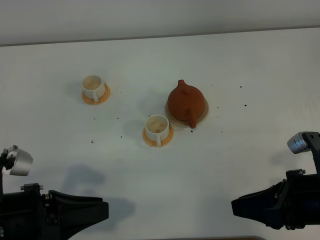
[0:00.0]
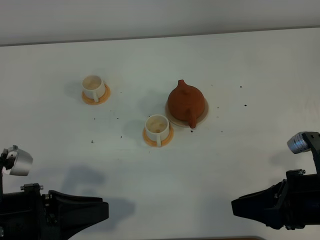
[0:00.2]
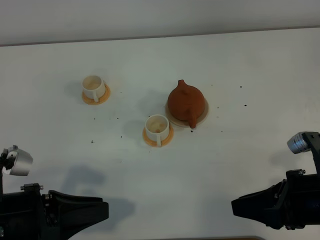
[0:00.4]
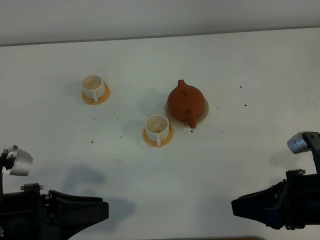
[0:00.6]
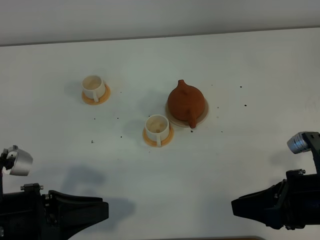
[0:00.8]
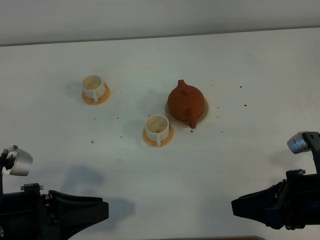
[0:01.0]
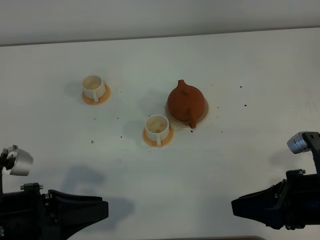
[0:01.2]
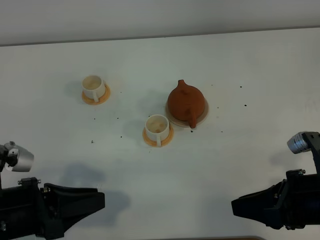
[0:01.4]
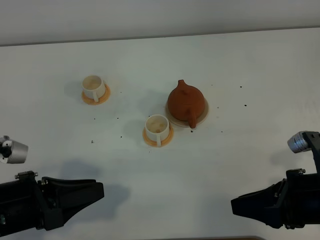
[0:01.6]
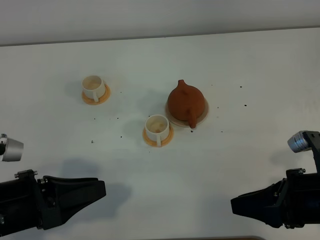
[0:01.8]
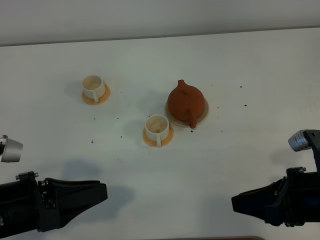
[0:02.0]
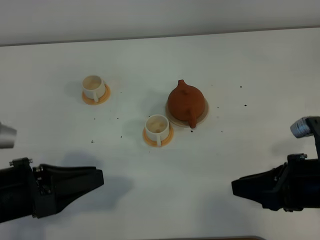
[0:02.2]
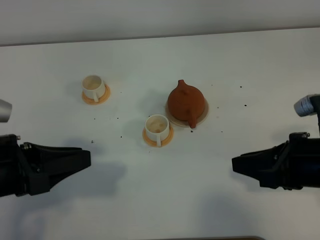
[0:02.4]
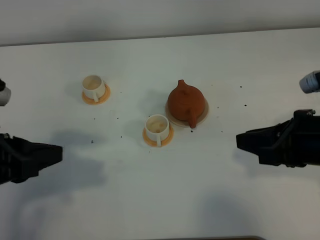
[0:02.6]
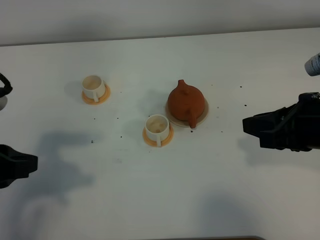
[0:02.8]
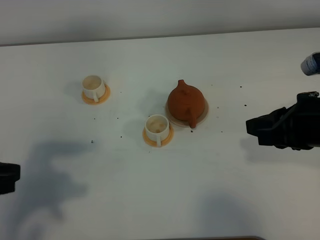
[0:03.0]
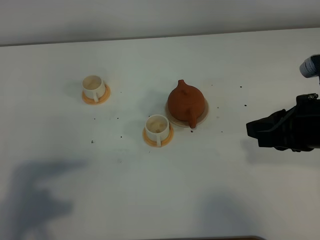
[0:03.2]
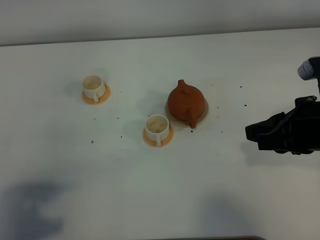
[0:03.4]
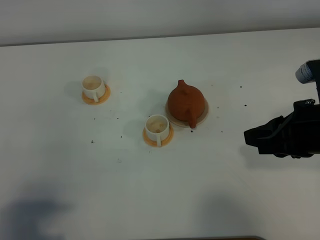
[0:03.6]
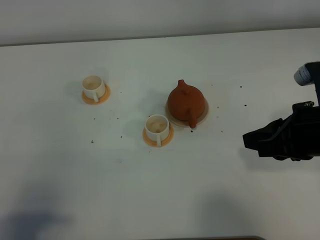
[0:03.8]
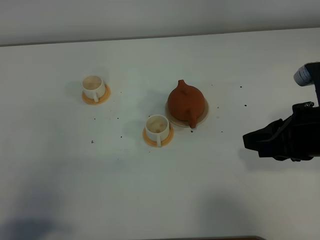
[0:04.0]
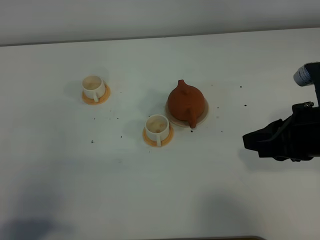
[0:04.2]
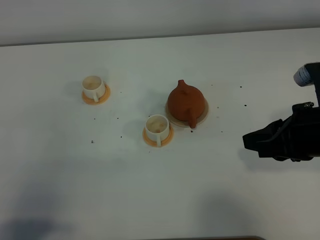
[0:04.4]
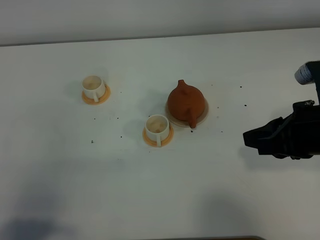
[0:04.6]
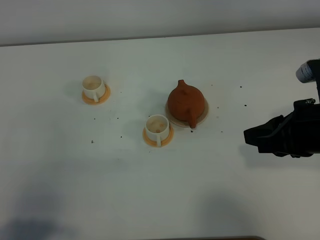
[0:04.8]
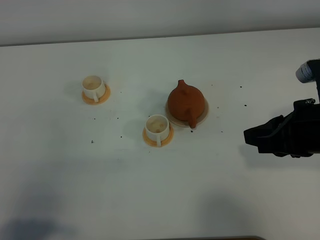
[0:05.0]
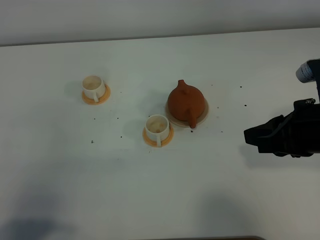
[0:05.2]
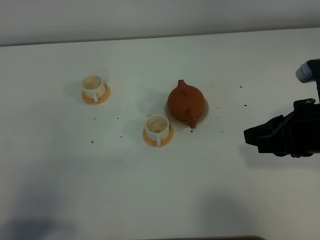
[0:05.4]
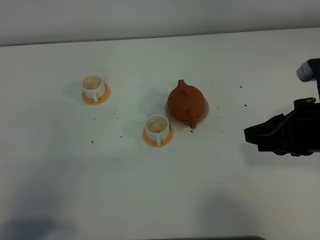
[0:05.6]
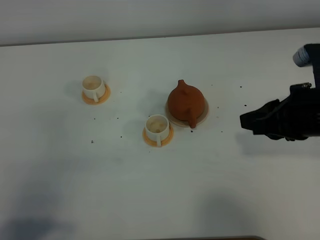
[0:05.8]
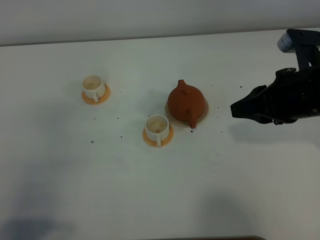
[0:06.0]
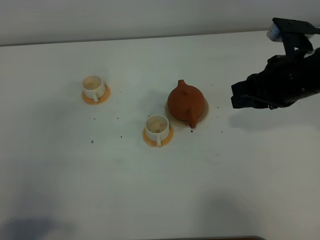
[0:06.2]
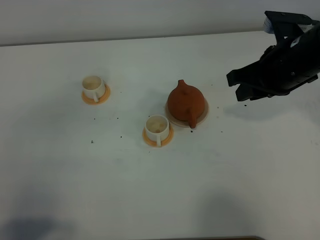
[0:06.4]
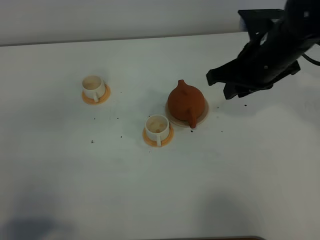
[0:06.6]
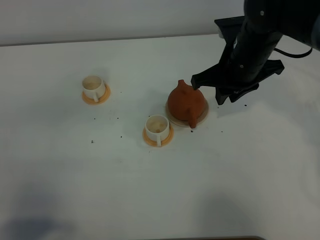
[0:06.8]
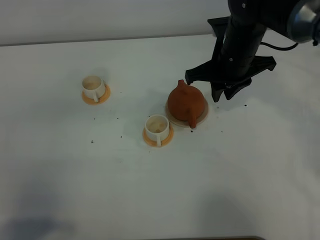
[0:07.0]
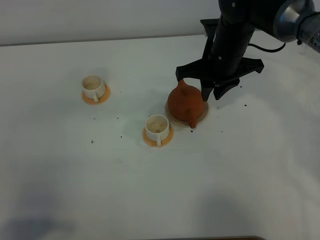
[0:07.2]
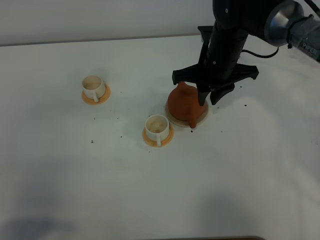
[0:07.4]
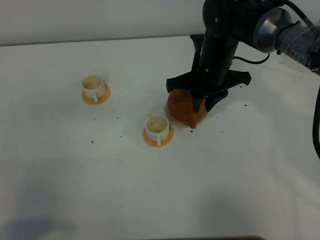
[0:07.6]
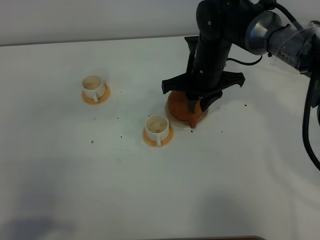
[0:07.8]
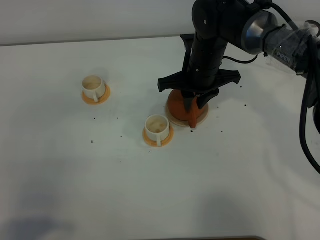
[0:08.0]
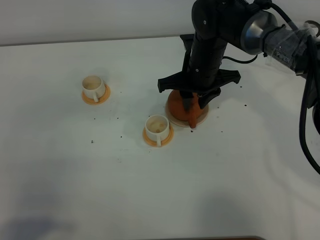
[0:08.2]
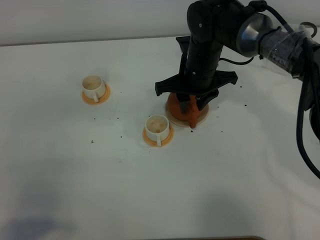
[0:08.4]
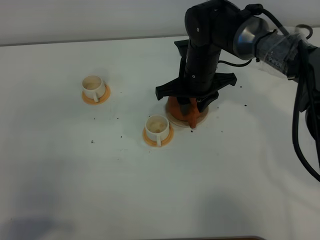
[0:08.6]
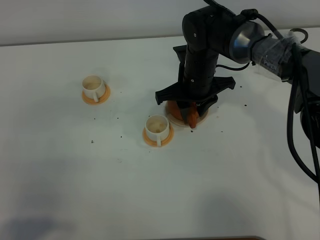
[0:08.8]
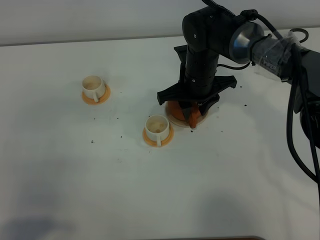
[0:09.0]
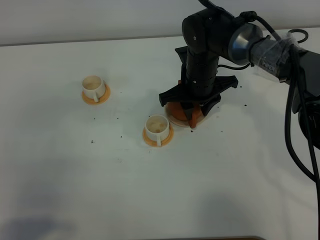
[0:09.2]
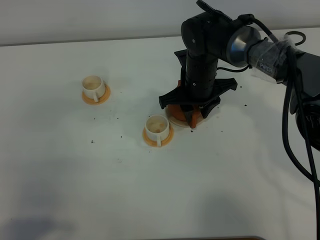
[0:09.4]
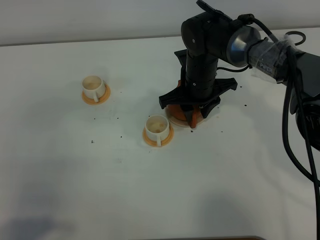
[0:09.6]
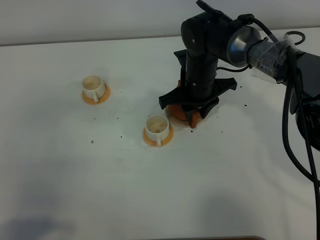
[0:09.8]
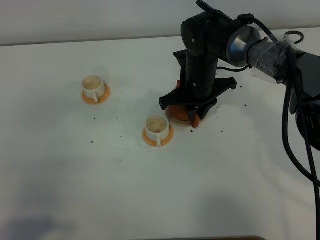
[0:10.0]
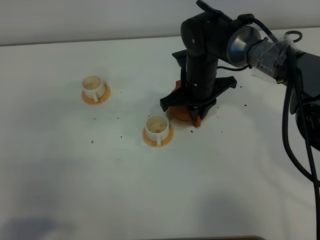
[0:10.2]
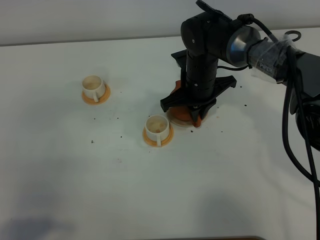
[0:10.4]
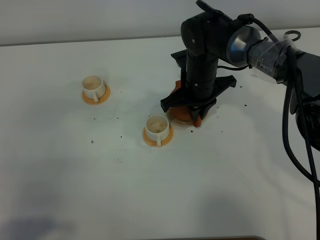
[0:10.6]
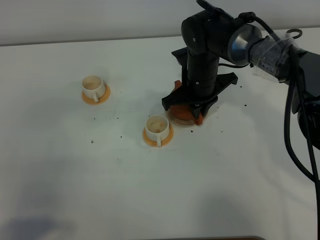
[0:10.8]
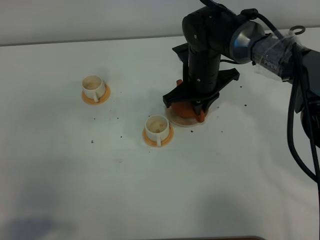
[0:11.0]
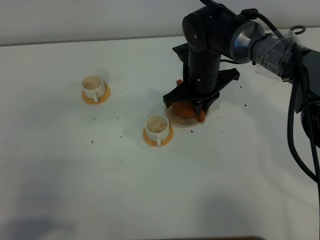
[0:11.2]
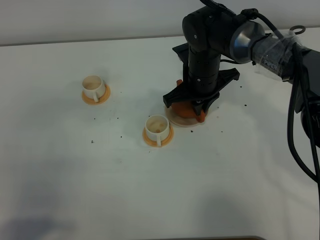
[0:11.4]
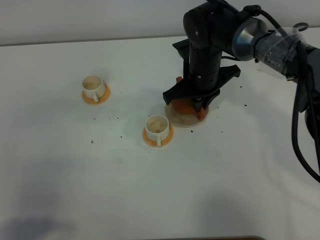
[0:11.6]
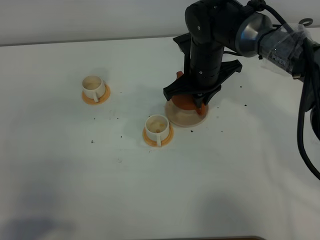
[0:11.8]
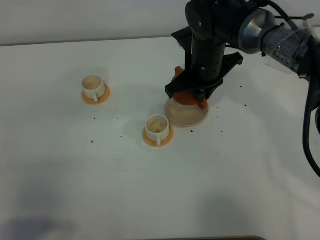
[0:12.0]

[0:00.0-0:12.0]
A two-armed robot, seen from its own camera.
Task of the whole recording: grasp the brown teapot and pour the tea into the two white teacups one by one, put the brown teapot back in its original place.
Step, 0:00.0 to 0:11.6: Pick up the teapot with the right gripper.
0:00.0 to 0:01.6: There are only small adjustments of the grippers.
0:01.6 to 0:03.0: The right gripper shifts approximately 10 cm forward and upward. Meanwhile the left gripper moves upward, some 10 cm.
0:03.0 to 0:04.4: The left gripper moves backward, some 15 cm.
0:04.4 to 0:06.0: The right gripper shifts roughly 5 cm forward.
0:06.0 to 0:07.6: The right gripper shifts some 20 cm to the left, forward and downward.
0:07.6 to 0:09.0: The right gripper opens its fingers.
0:09.0 to 0:10.4: The right gripper closes up.
0:10.4 to 0:12.0: There are only small adjustments of the grippers.

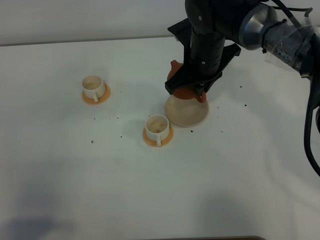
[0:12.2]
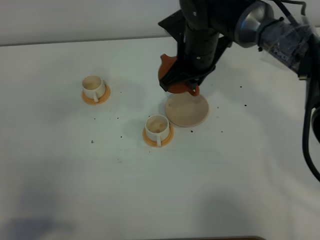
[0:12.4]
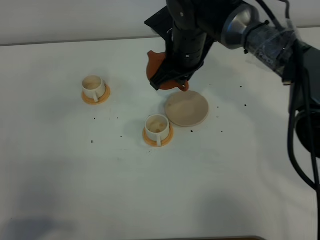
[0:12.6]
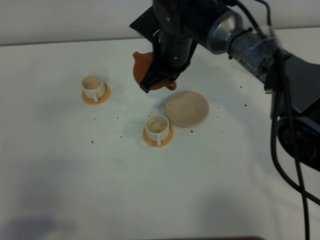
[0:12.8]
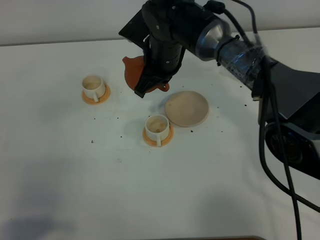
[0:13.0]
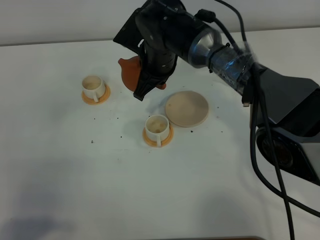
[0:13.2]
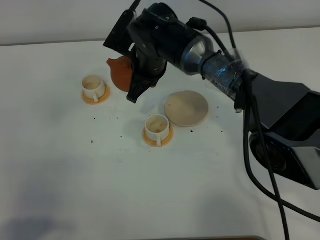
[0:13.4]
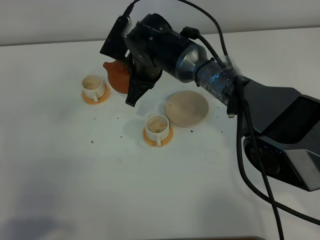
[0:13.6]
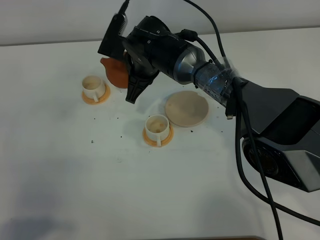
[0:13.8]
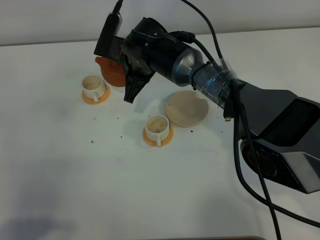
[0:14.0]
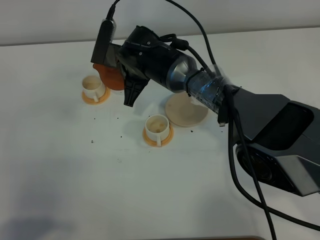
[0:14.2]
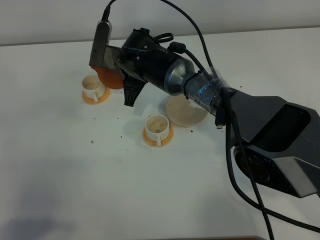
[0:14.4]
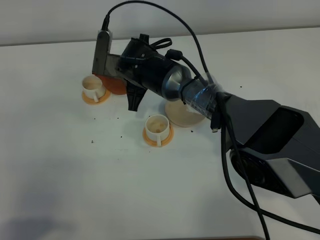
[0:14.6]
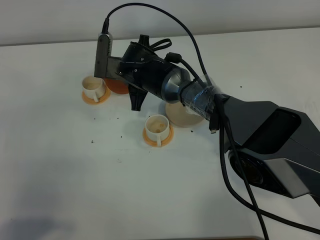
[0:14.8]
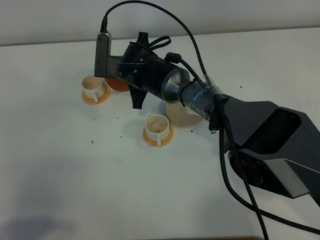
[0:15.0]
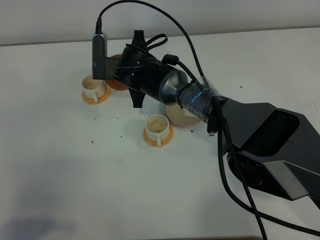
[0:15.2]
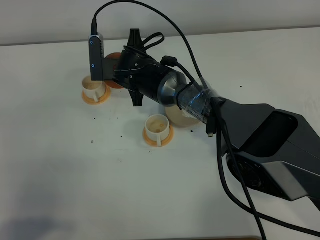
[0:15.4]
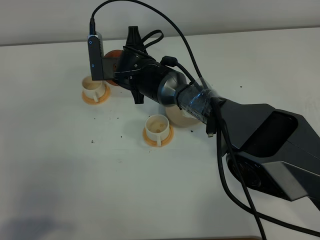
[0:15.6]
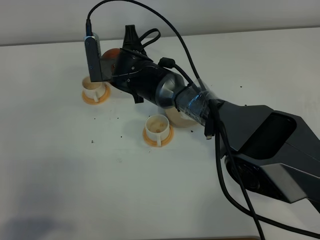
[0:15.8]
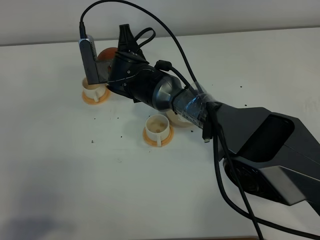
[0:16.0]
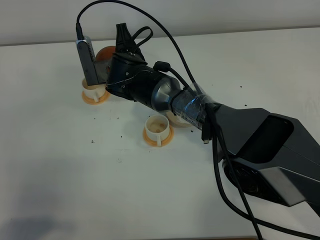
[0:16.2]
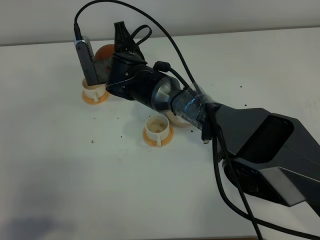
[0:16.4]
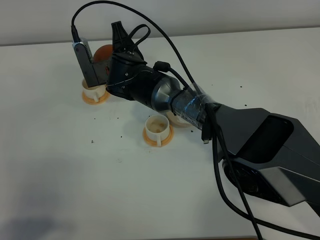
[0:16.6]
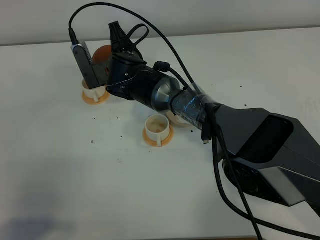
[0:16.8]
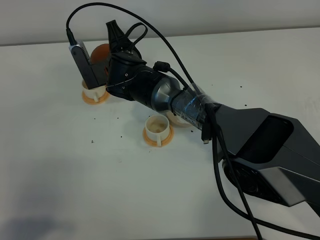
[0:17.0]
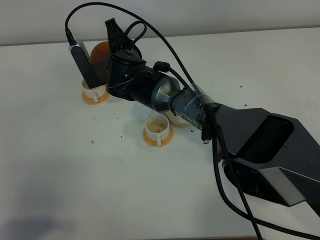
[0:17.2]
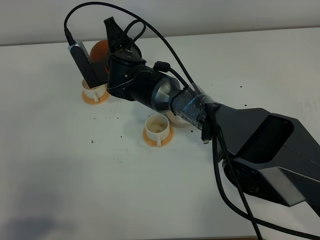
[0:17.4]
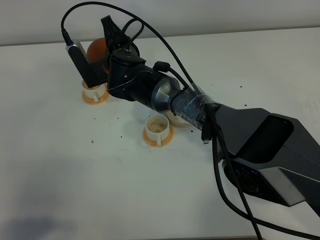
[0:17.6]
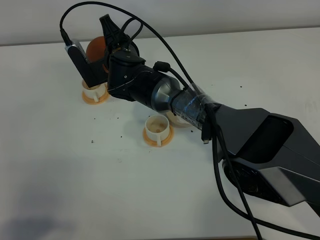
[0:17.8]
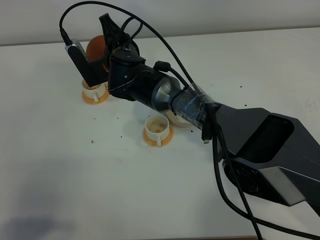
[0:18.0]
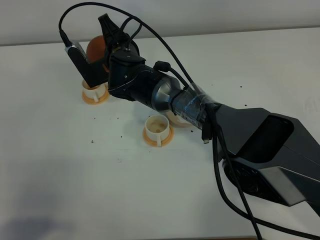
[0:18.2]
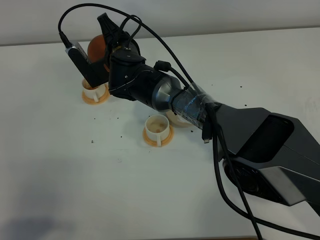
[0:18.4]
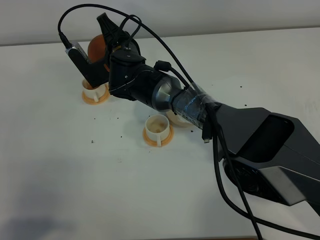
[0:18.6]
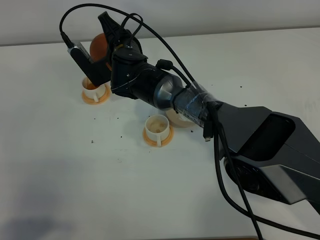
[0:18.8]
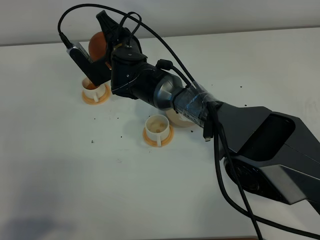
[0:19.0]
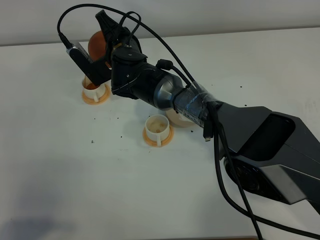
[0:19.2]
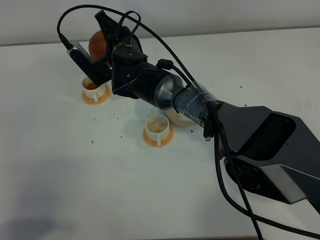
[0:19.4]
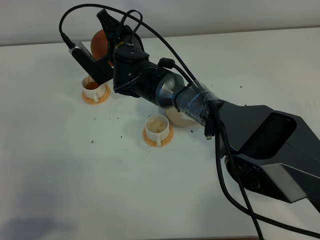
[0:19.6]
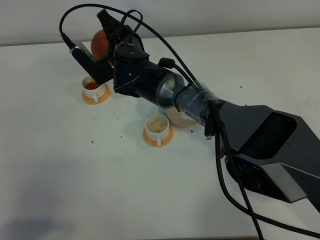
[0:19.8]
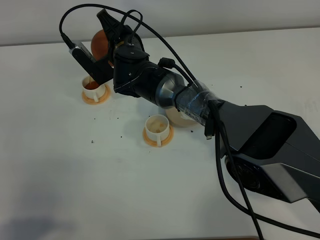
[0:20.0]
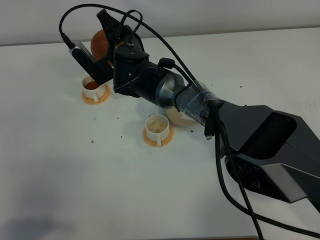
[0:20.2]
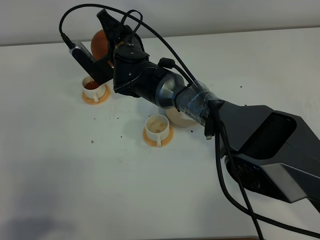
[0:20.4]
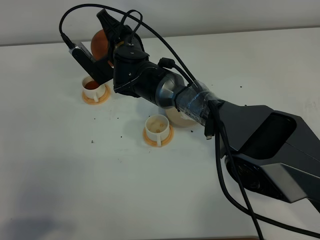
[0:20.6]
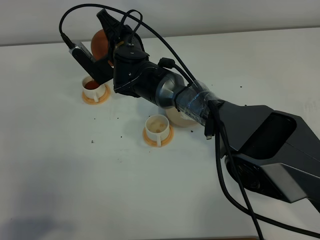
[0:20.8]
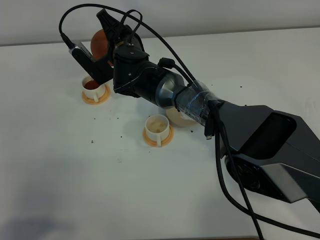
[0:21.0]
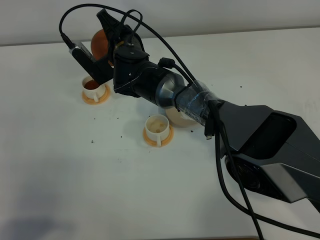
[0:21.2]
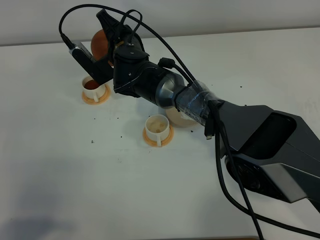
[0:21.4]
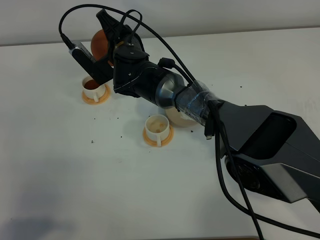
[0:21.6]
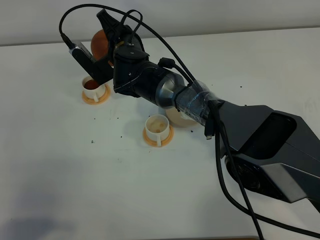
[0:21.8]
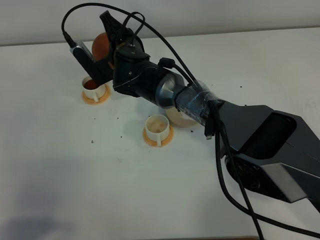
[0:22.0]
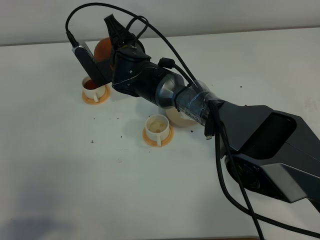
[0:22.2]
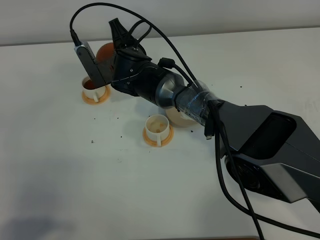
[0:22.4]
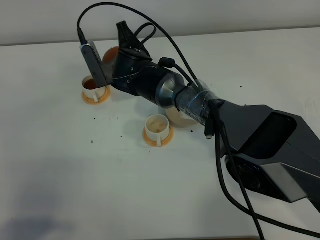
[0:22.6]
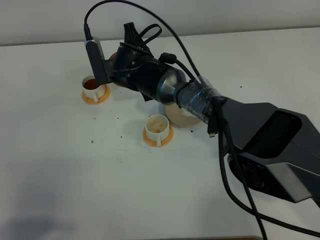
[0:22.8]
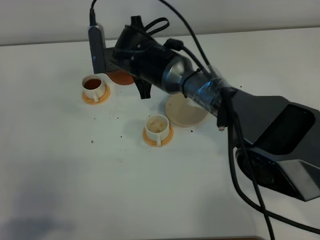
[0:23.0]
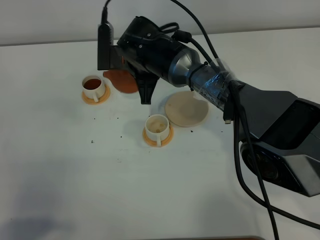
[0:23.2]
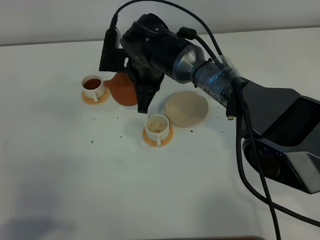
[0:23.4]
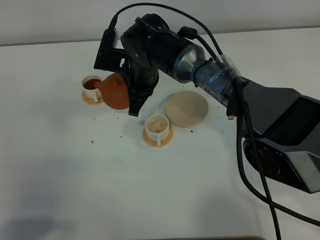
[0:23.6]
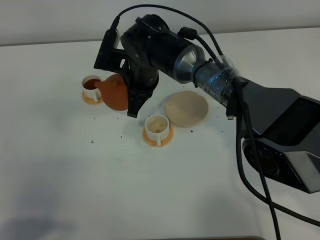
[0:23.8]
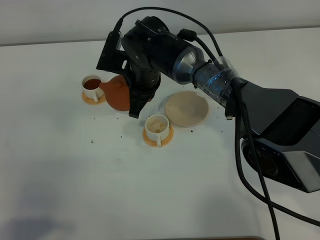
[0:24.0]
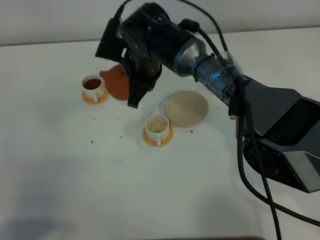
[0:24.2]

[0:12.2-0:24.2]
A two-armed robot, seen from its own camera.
Task of the whole recording: grasp the brown teapot and pour the tea into the two white teacups one by one, put the brown teapot back in its original place.
0:12.2 to 0:13.8: The right gripper moves to the left, roughly 10 cm.
0:16.6 to 0:18.2: There are only small adjustments of the grippers.
0:18.2 to 0:19.8: The grippers make only small movements.
0:19.8 to 0:21.2: Neither gripper changes place.
0:22.6 to 0:24.2: The right gripper shifts roughly 5 cm upward.
